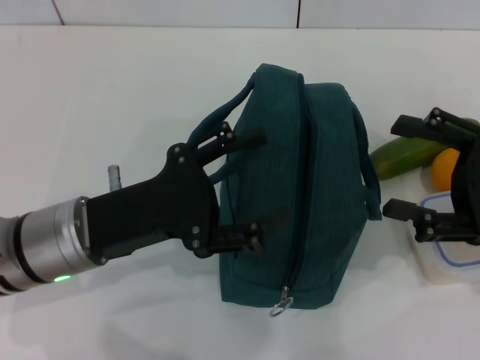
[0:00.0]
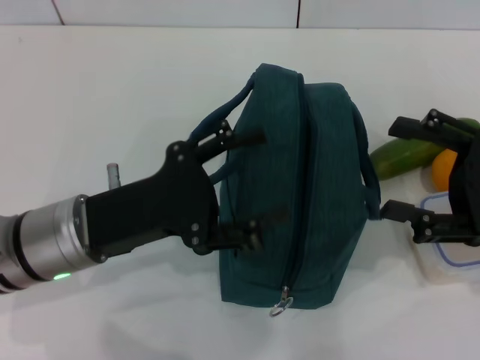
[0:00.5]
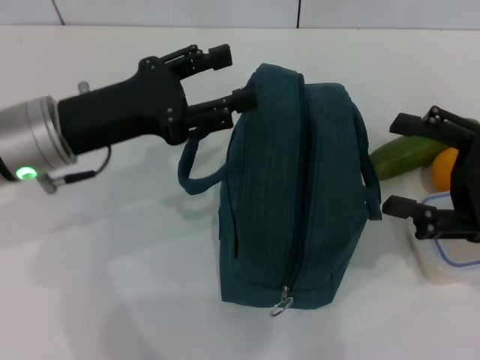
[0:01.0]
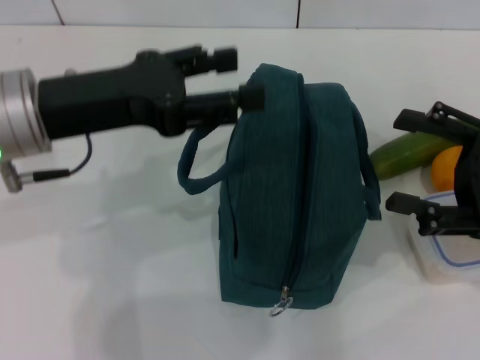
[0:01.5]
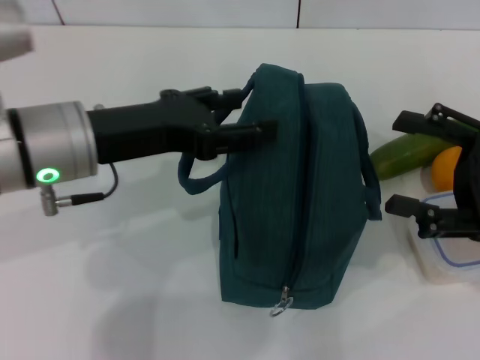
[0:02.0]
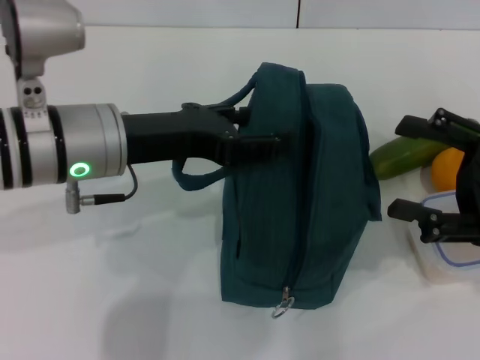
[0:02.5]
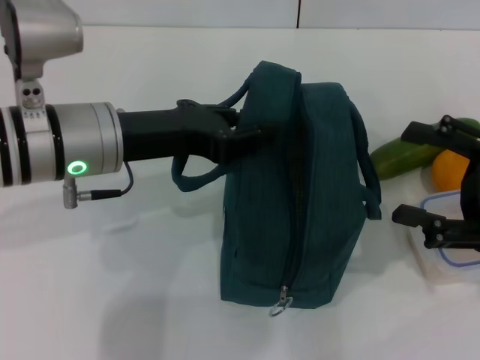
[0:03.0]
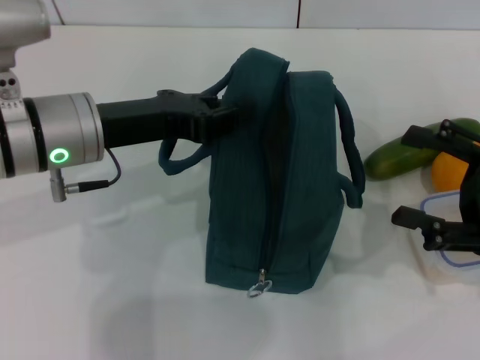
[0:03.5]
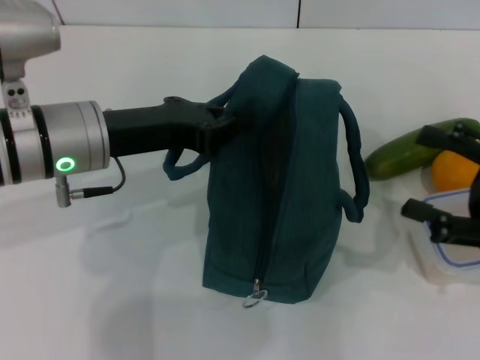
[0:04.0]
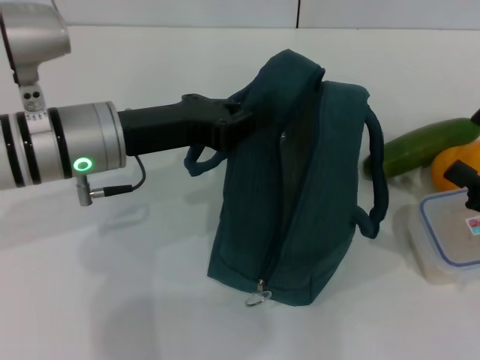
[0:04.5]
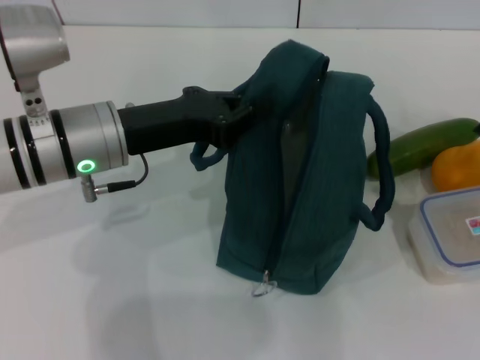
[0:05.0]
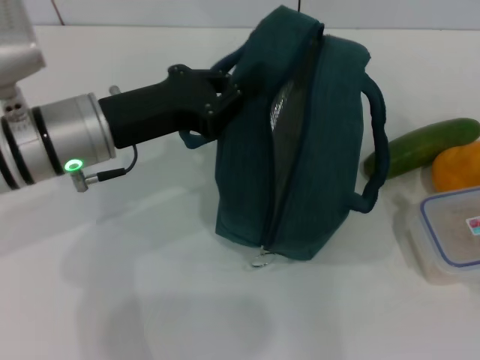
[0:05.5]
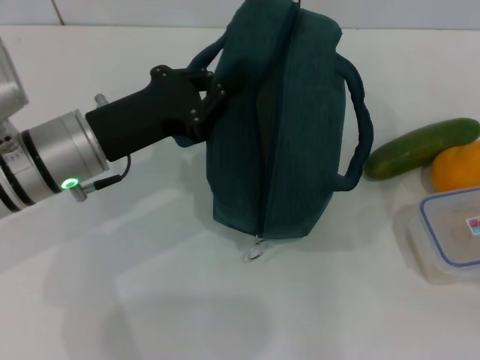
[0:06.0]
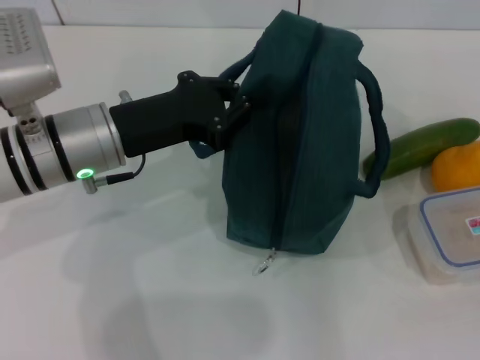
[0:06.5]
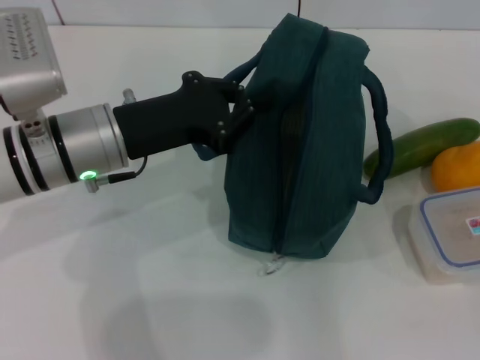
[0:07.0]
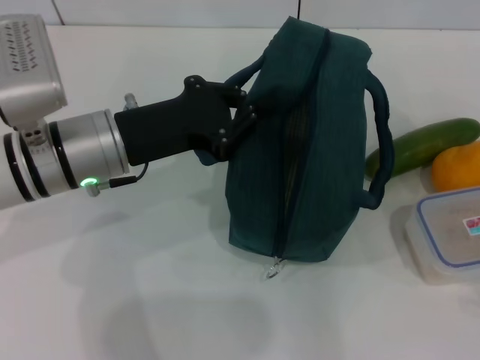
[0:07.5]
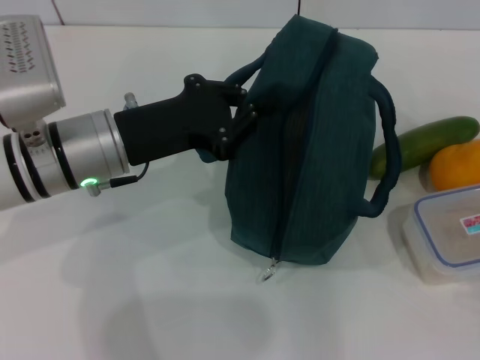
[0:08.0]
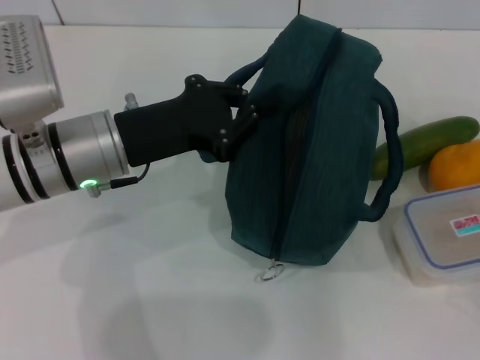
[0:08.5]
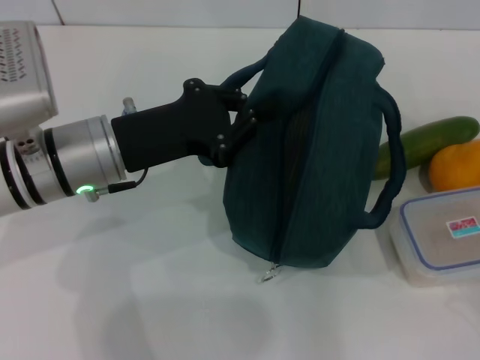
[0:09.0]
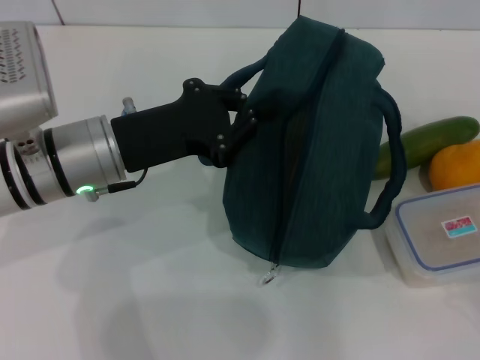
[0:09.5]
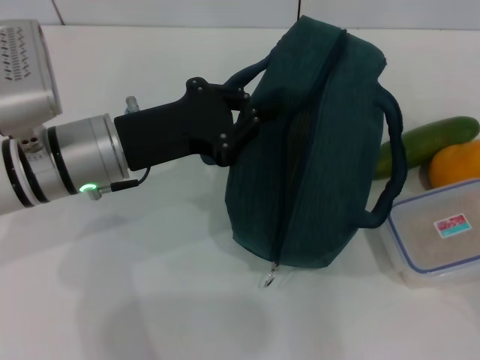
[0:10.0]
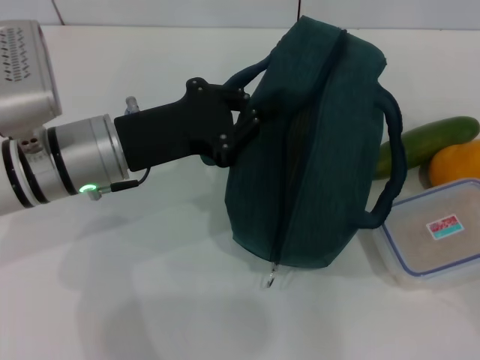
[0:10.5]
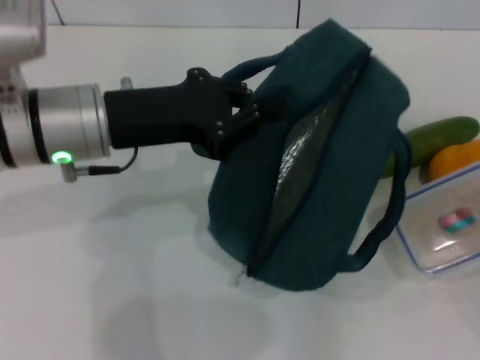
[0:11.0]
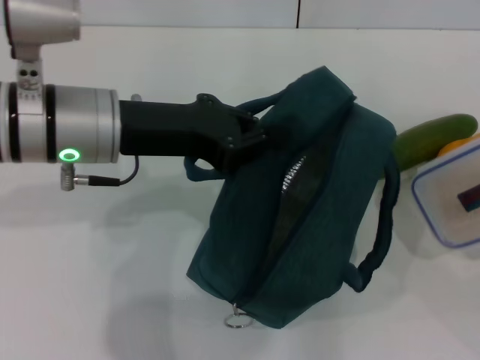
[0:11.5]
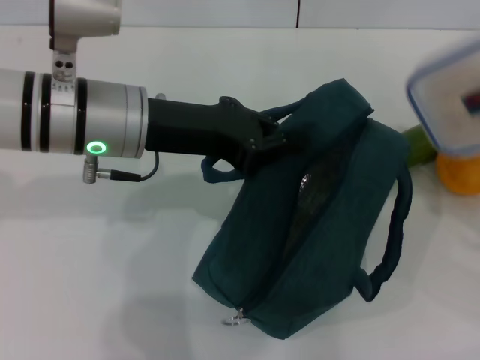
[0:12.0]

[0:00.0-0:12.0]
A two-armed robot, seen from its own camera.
Step, 0:00.0 to 0:04.0: Hold the lunch bag with your left hand.
Step, 0:04.5 to 0:10.5: Pick up the lunch box with your right hand.
0:00.0 to 0:02.0: The left gripper goes some 10 cm upward.
0:02.0 to 0:04.0: The left gripper closes up.
0:04.0 to 0:06.0: The right gripper shifts roughly 15 cm backward, downward and to the right.
0:06.0 to 0:08.0: The right gripper ends up some 5 cm from where it was.
0:08.0 to 0:10.0: The right gripper closes.
0:10.0 to 0:12.0: The right gripper goes approximately 10 cm upward and forward. The left gripper heads upward, covering roughly 5 cm.

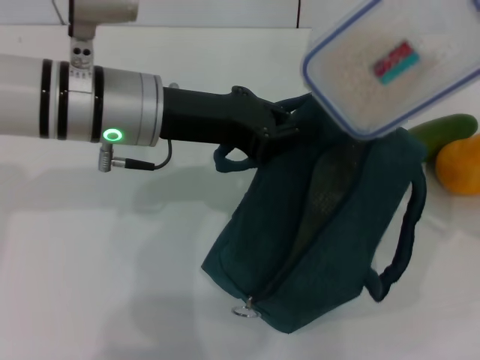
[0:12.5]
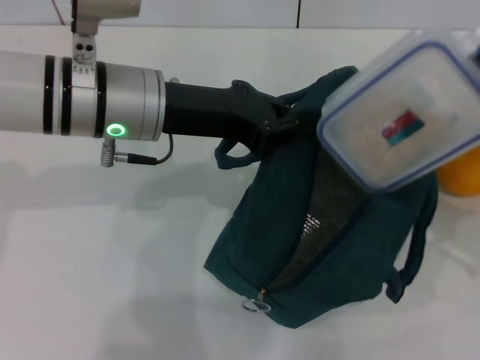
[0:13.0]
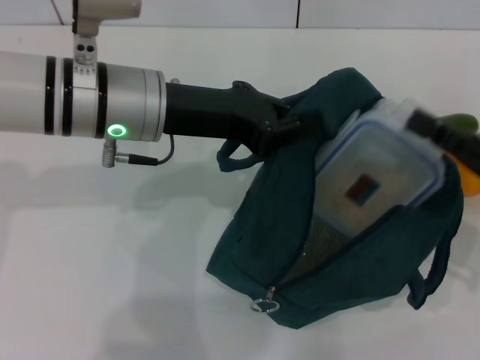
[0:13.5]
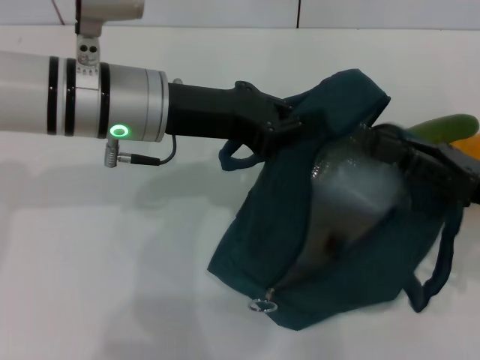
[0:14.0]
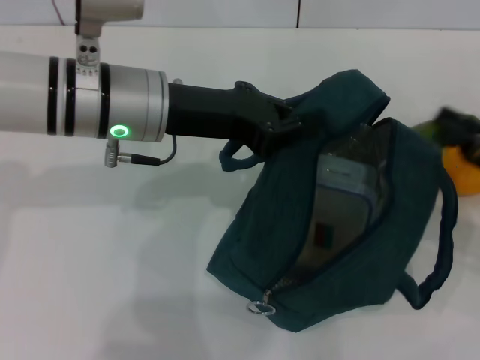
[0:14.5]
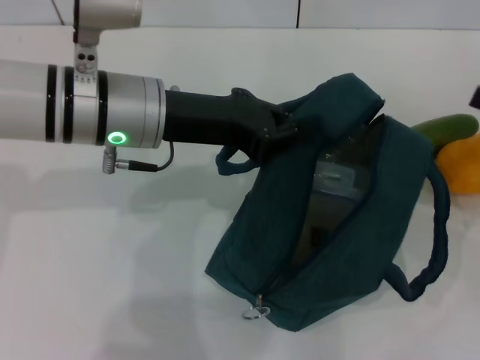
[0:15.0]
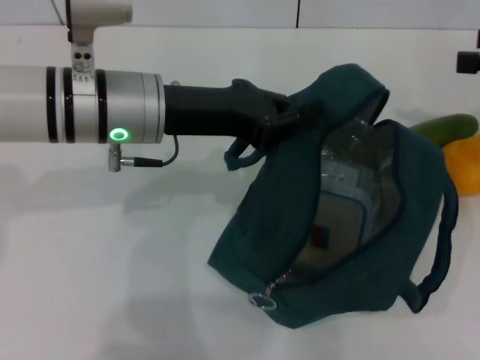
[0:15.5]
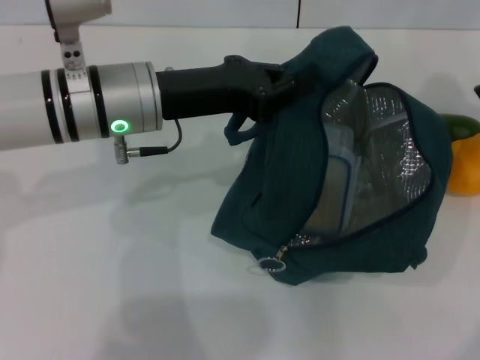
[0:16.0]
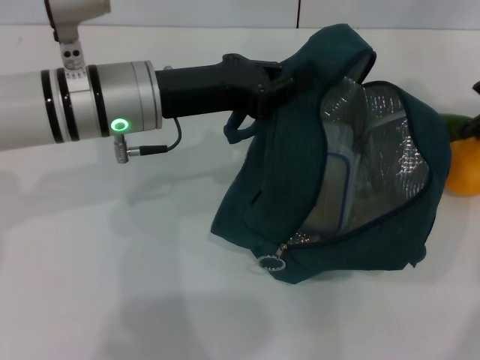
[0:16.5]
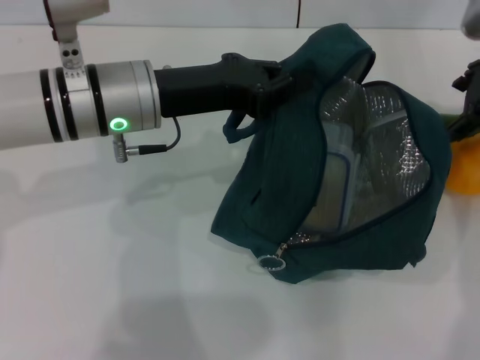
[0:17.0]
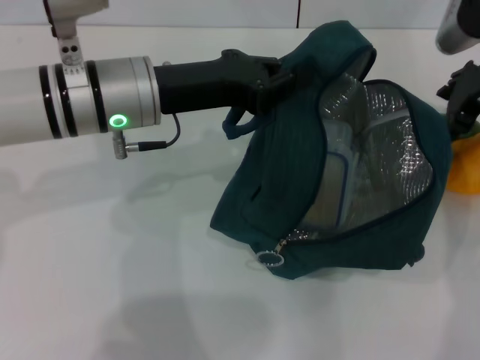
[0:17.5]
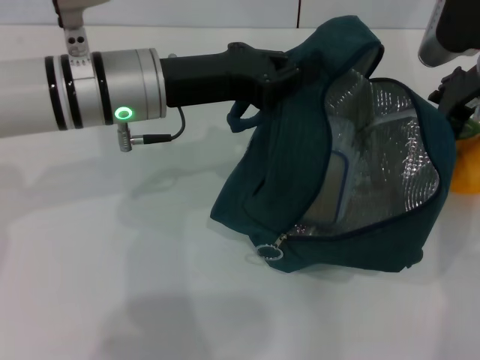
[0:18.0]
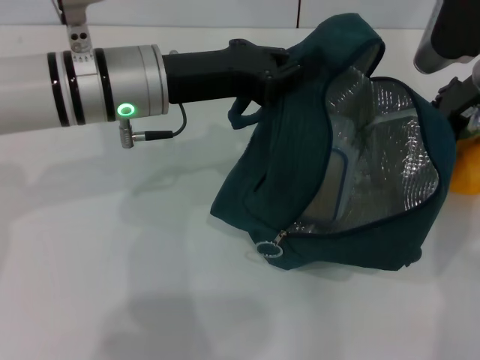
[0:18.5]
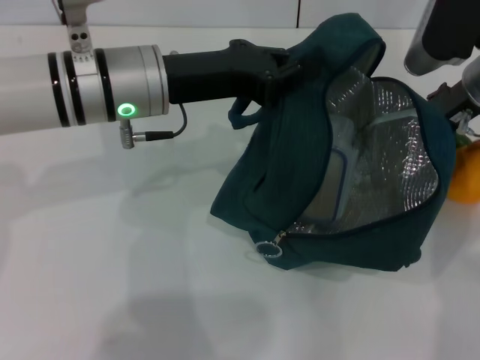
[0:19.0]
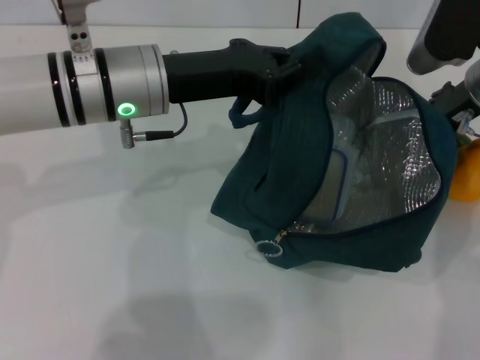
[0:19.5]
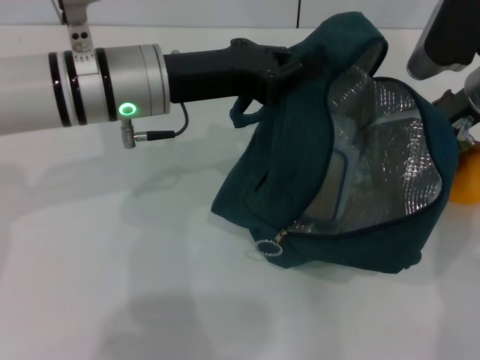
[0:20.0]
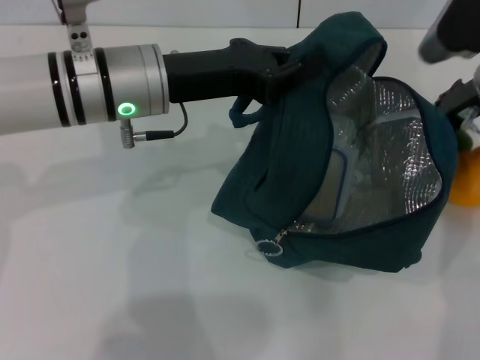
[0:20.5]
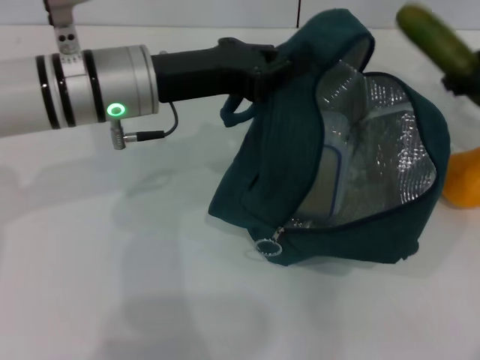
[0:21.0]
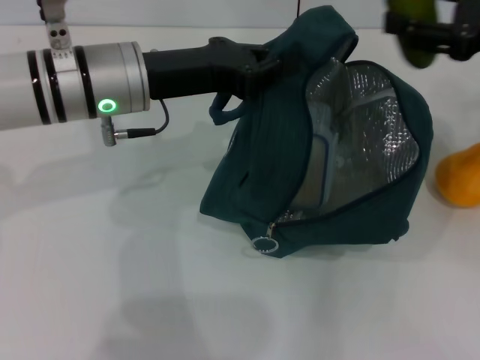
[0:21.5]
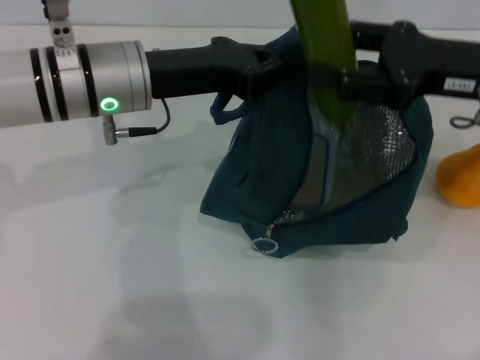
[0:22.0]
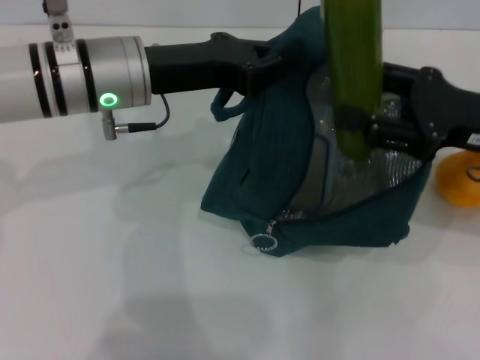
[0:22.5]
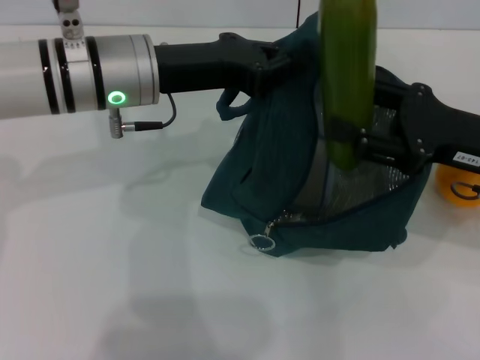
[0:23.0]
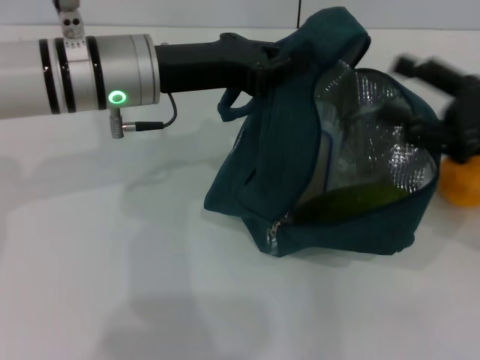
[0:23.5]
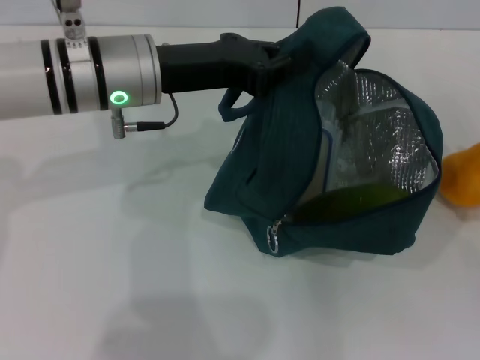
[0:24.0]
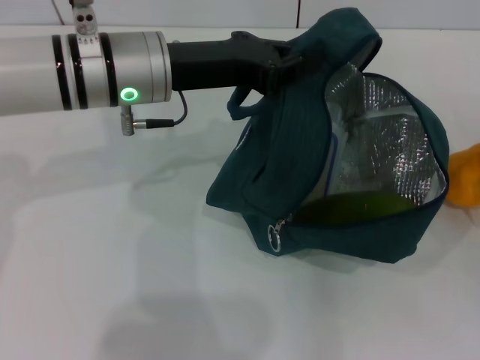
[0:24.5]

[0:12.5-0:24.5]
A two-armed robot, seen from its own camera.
Step, 0:12.5 to 0:14.5: Place the lunch box into the lunch bag with your right hand.
Step, 0:15.0 to 0:20.0: Pick up the cucumber with your right hand.
Step, 0:20.5 to 0:24.0: Put the cucumber into the lunch bag with your right hand.
0:12.5 to 0:14.5: The right gripper shifts approximately 5 cm downward, and opens.
0:14.5 to 0:16.5: The right gripper goes some 20 cm forward and upward, and opens up.
0:16.5 to 0:18.5: The right gripper shifts approximately 10 cm to the left and downward.
0:18.5 to 0:20.5: The grippers make only small movements.
0:20.5 to 0:22.5: The right gripper goes some 10 cm backward.
0:22.5 to 0:24.5: The right gripper heads to the right, downward and backward, covering roughly 20 cm.

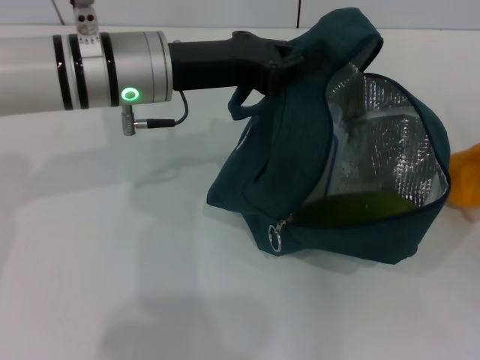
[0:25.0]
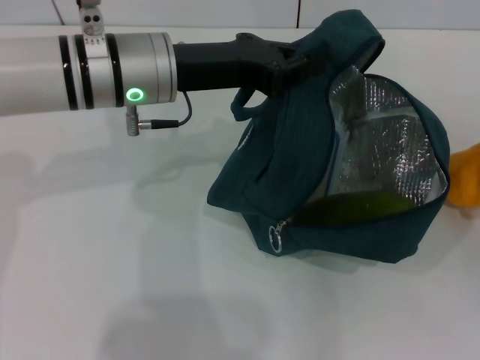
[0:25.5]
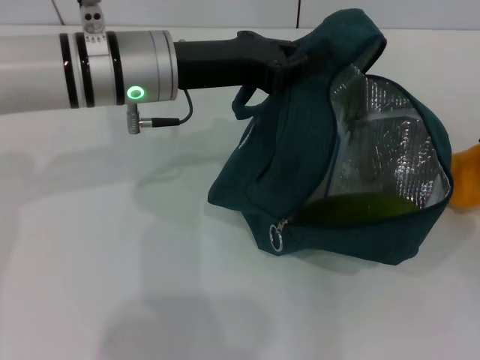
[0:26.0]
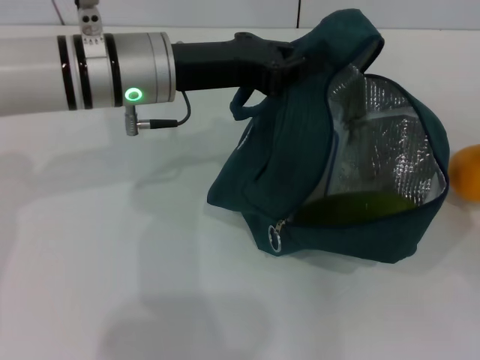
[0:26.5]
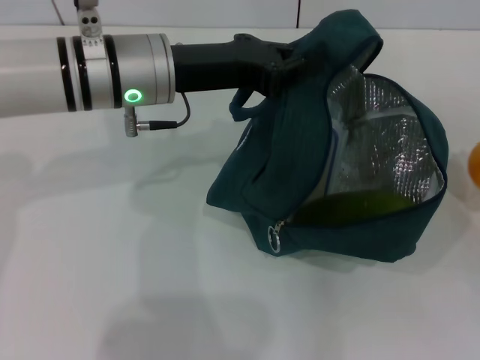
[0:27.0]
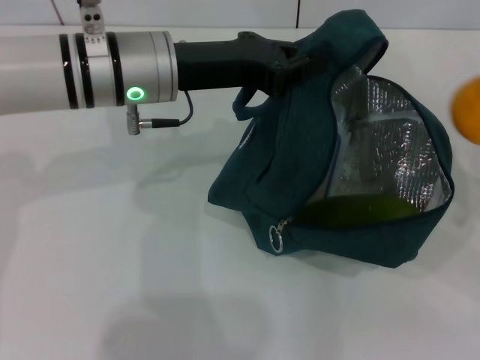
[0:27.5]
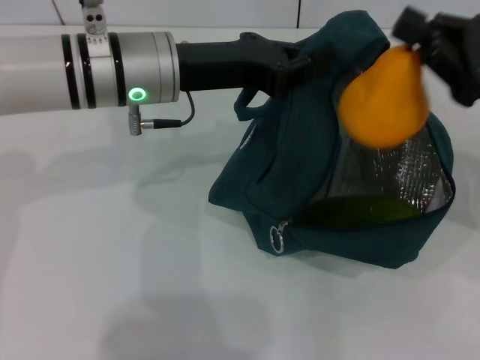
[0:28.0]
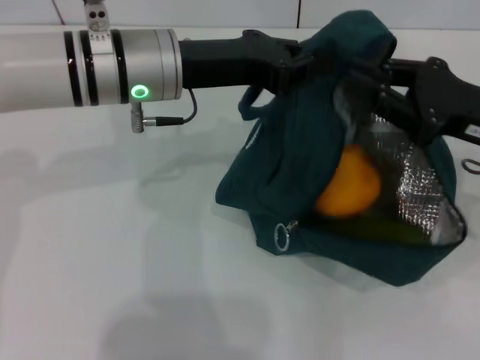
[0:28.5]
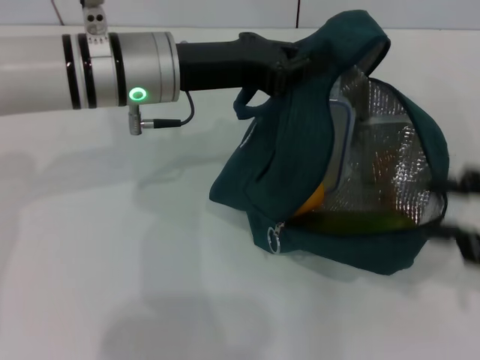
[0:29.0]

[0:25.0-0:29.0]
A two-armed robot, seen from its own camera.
Step, 0:25.0 to 0:26.5: Grab the pear with your right hand.
0:25.0 to 0:27.0: The right gripper closes up.
0:27.0 to 0:29.0: The right gripper shifts some 5 cm upward, and opens.
